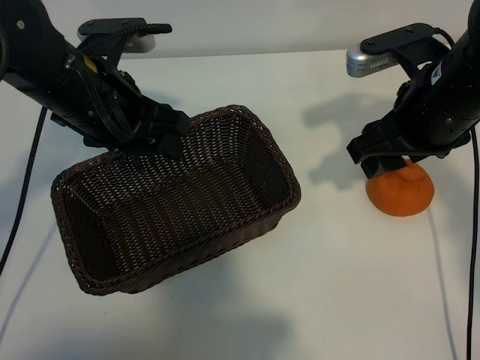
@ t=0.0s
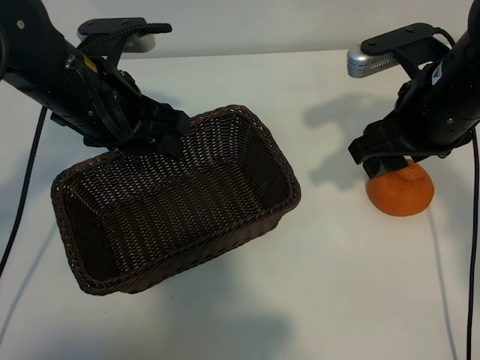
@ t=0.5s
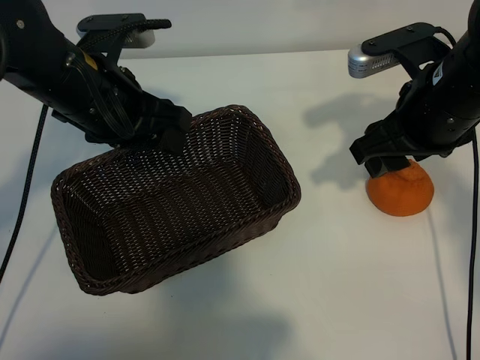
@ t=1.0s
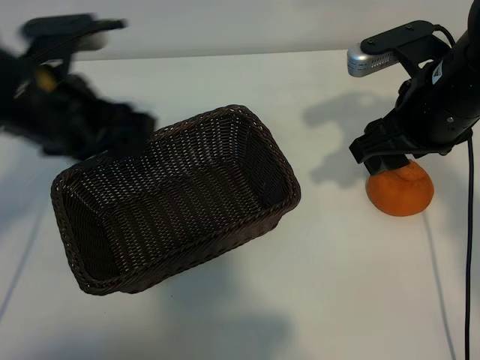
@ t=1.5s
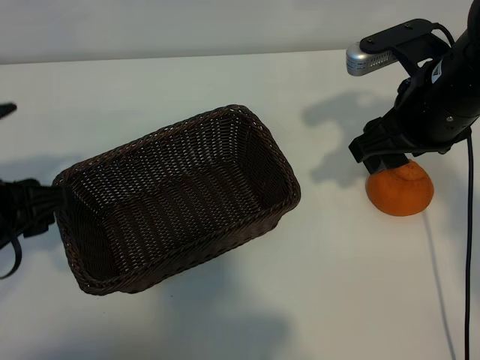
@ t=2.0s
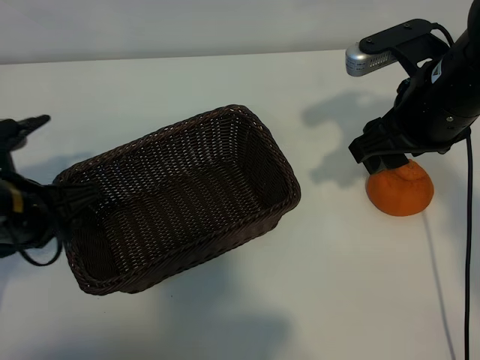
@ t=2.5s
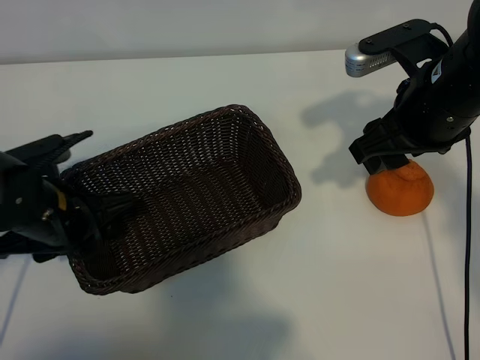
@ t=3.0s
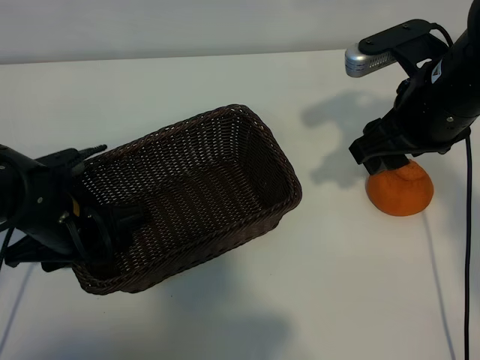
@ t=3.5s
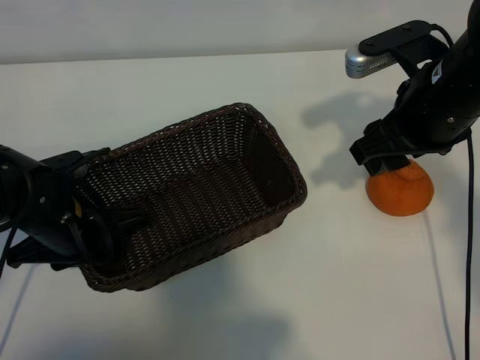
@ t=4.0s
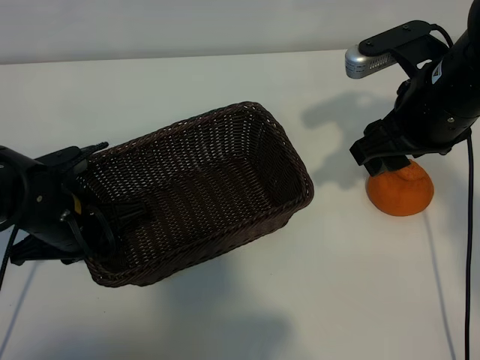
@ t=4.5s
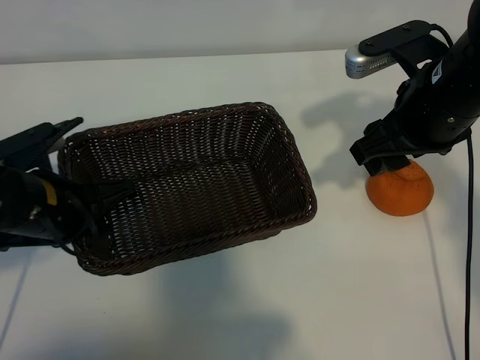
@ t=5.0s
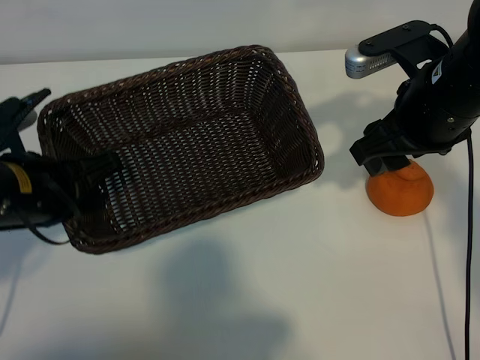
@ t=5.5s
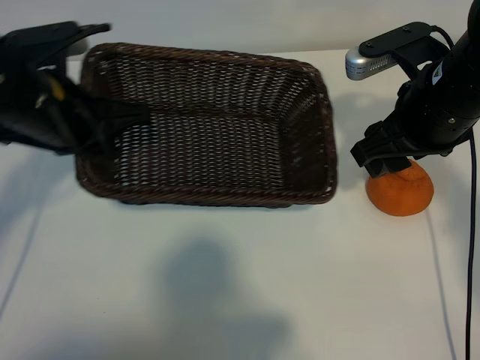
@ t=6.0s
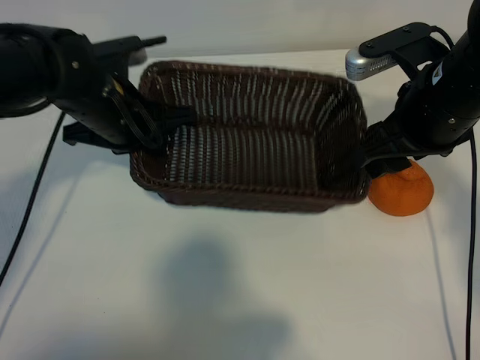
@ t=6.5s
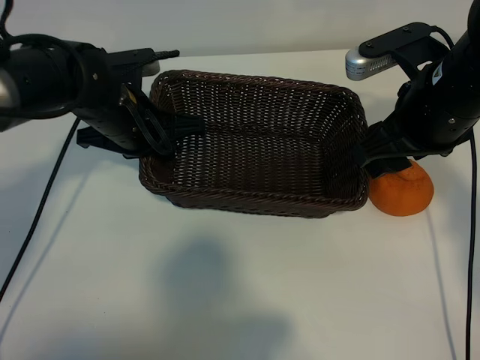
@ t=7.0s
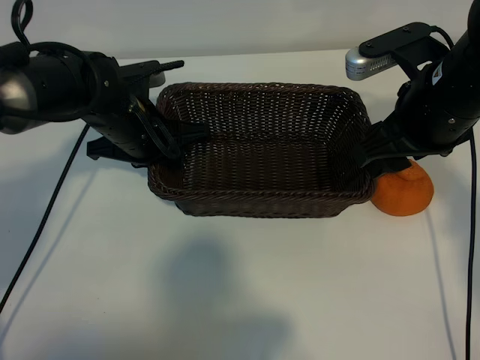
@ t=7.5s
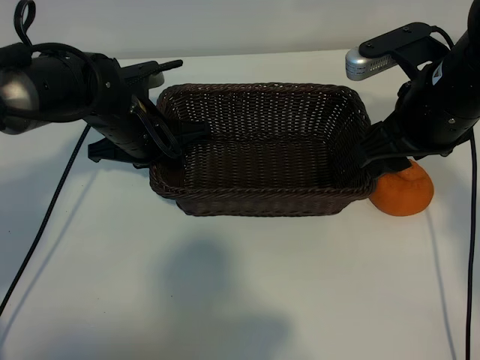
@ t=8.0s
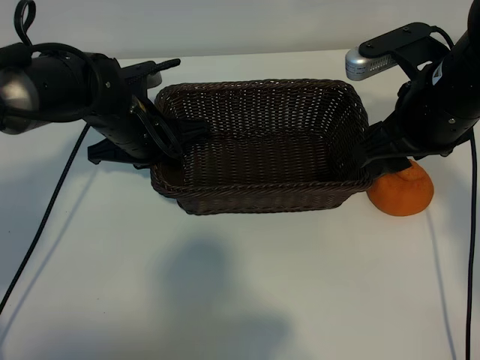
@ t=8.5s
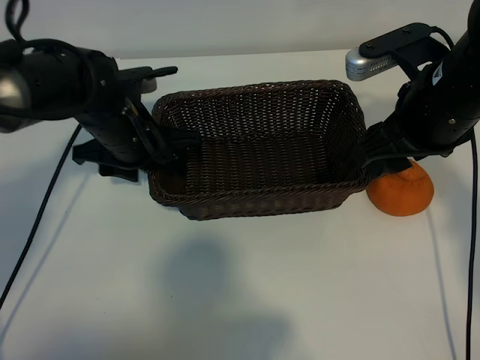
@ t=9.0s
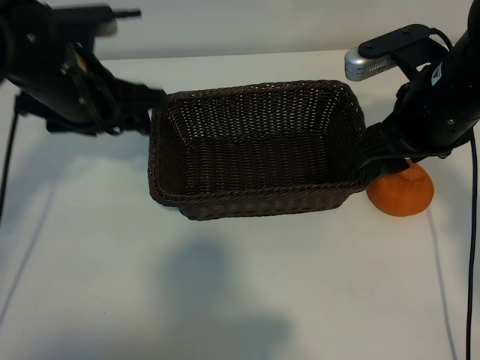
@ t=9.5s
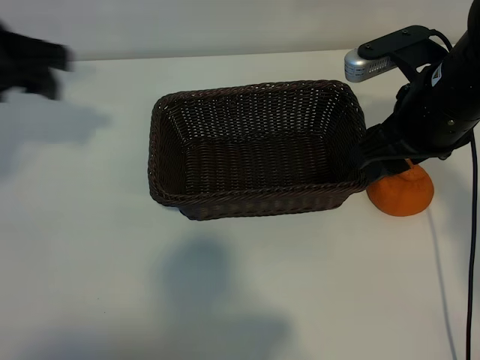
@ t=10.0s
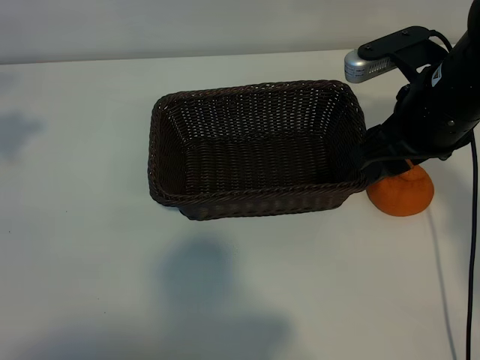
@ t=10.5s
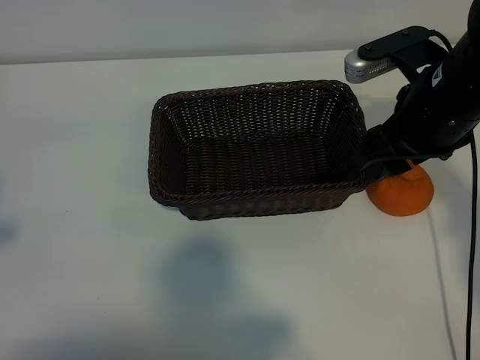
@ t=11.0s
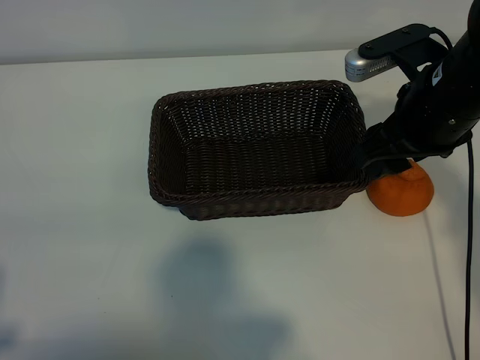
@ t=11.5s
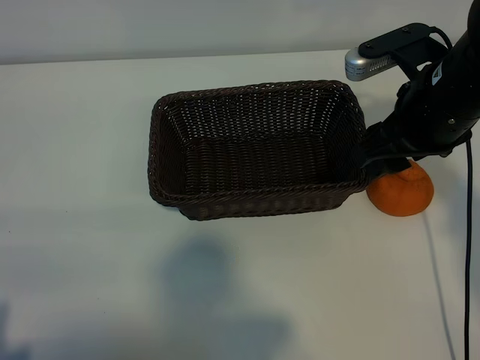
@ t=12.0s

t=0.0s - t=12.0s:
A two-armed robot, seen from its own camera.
Task of the whole recording: pick up the orange and put it into the basket.
Step, t=1.0s - t=4.0s: Grasp the basket with left gripper.
Step, t=4.5s - t=8.5s: Place the basket in the center of view with left gripper.

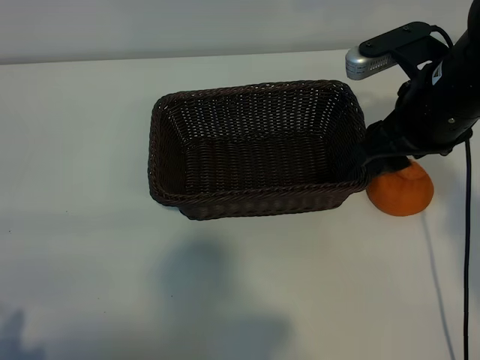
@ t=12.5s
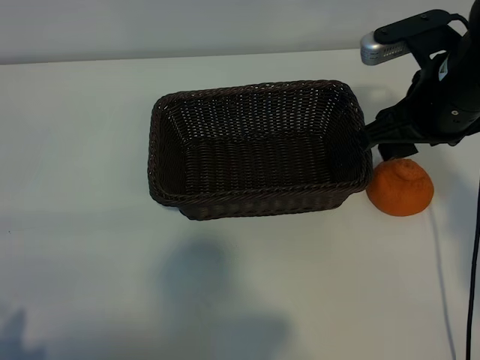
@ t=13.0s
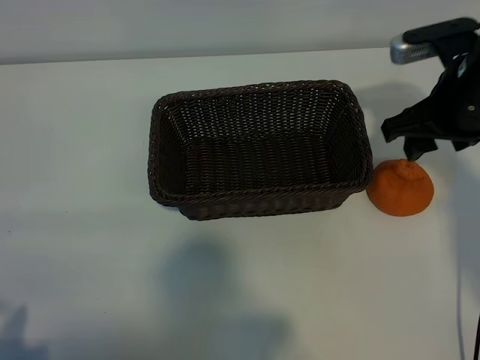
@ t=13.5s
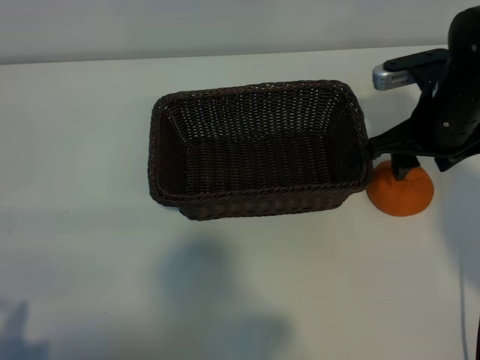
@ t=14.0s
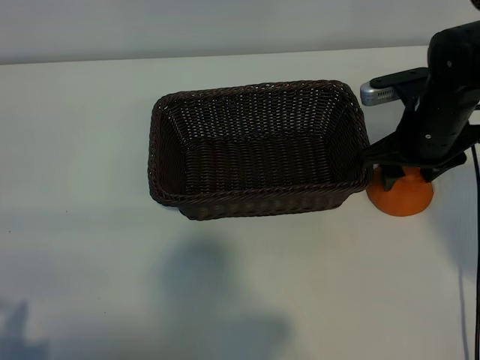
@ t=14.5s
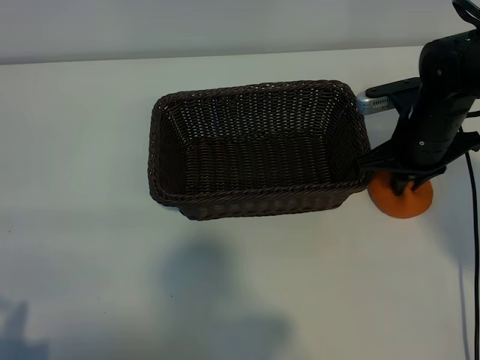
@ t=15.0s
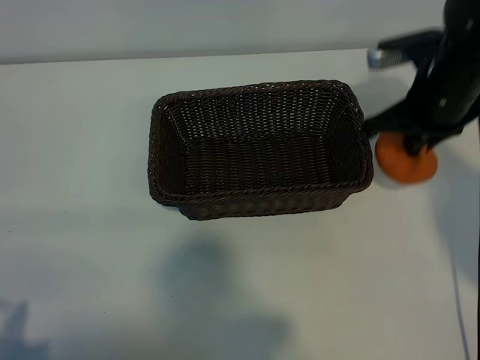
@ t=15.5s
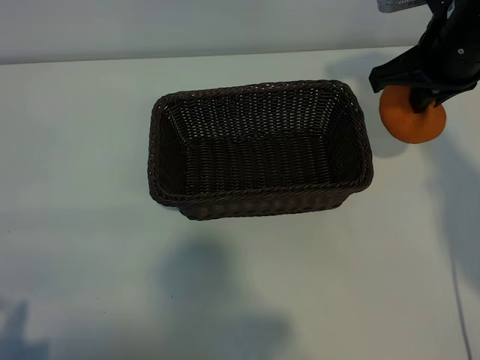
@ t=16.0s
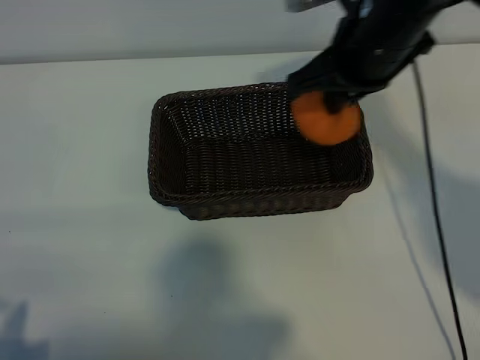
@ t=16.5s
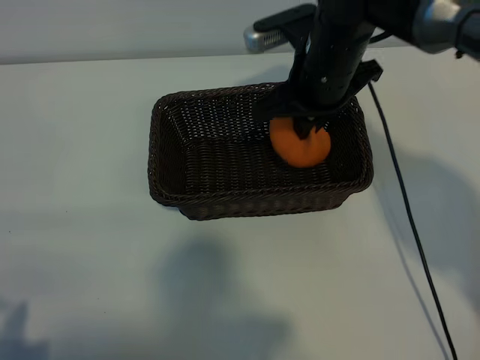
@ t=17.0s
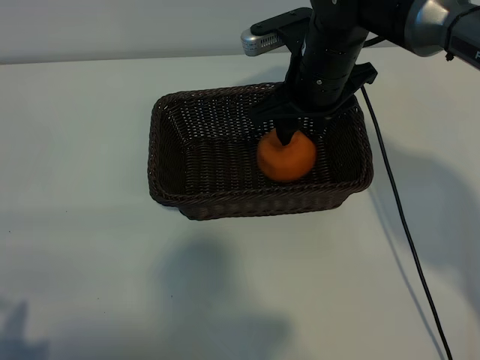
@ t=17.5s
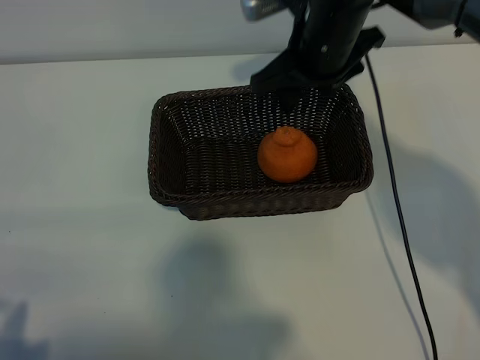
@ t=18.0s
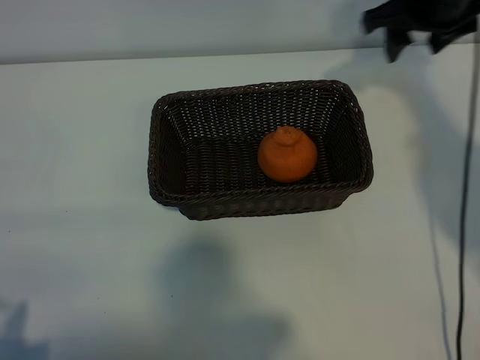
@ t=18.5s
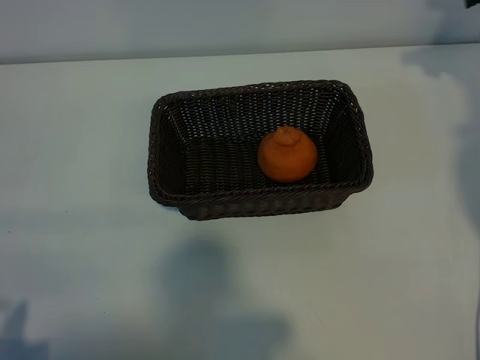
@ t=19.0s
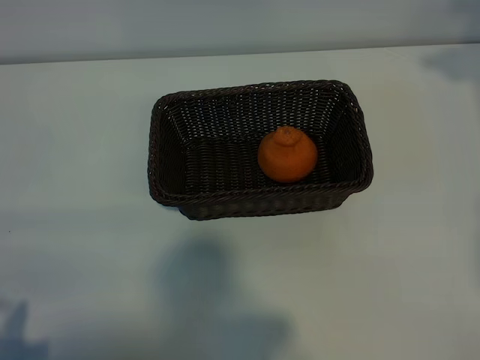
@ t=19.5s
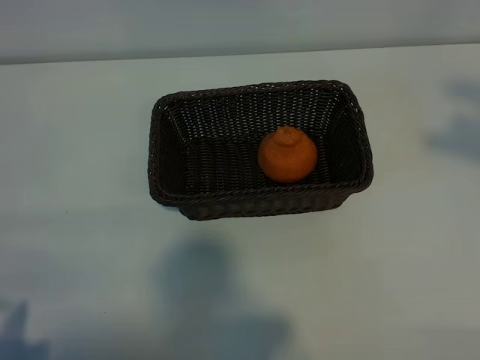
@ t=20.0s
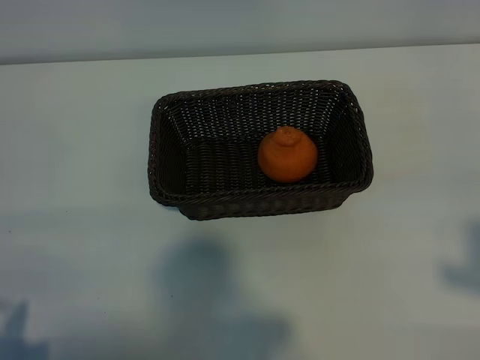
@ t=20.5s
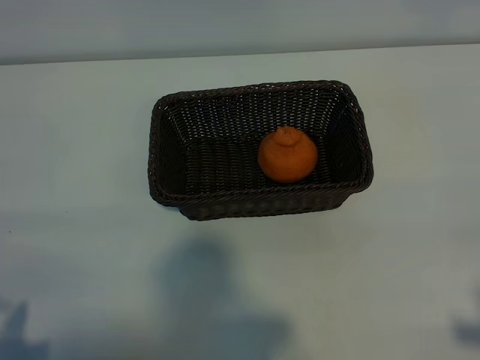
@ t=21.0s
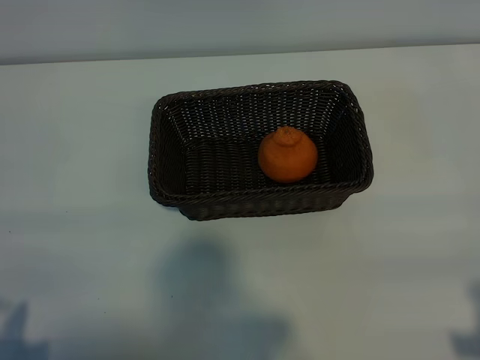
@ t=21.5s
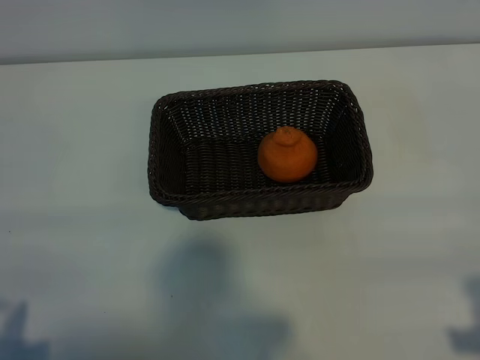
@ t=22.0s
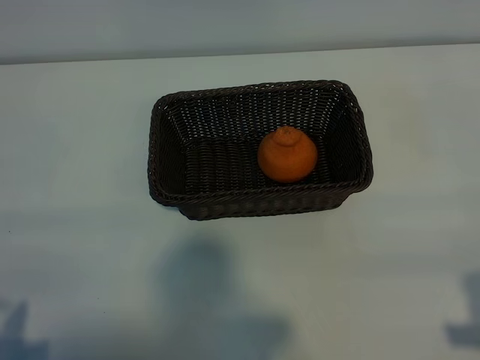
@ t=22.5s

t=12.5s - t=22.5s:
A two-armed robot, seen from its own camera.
Task of the whole recording: pick up the orange and put it into the basket.
Step, t=12.5s - t=15.0s: Grasp the orange with right gripper.
Step, t=15.5s - t=17.0s: Place the orange in the basket with right gripper.

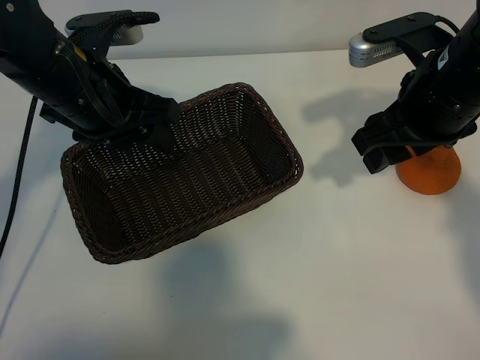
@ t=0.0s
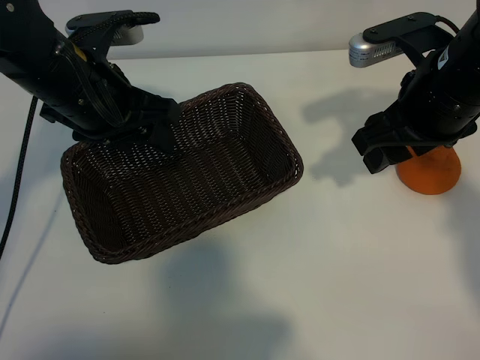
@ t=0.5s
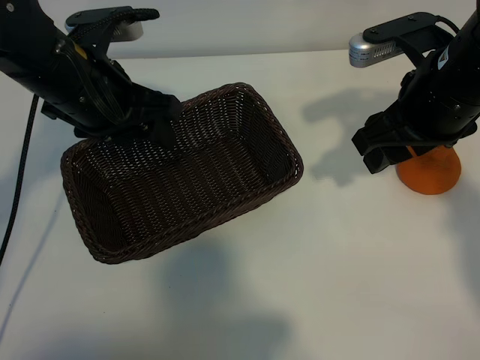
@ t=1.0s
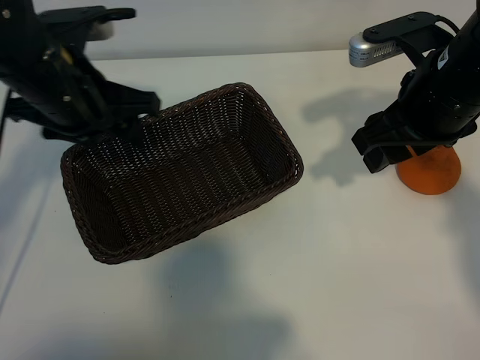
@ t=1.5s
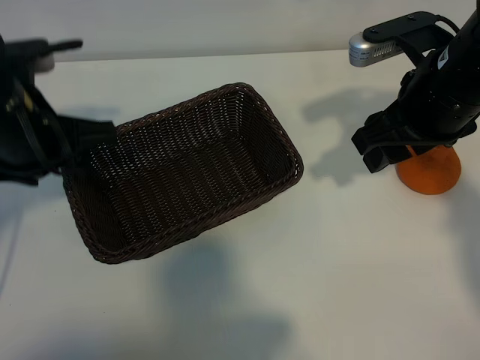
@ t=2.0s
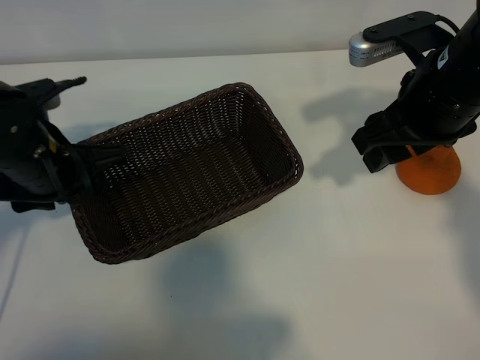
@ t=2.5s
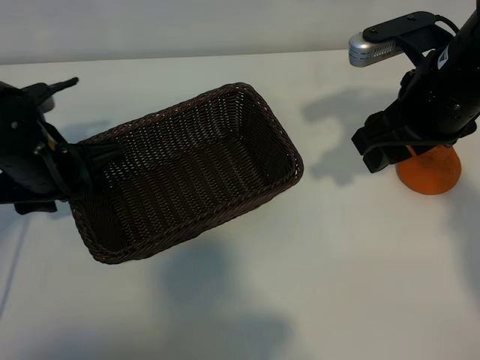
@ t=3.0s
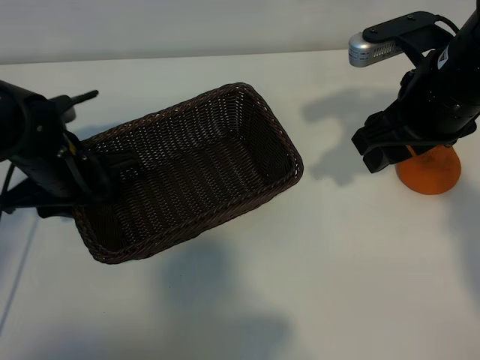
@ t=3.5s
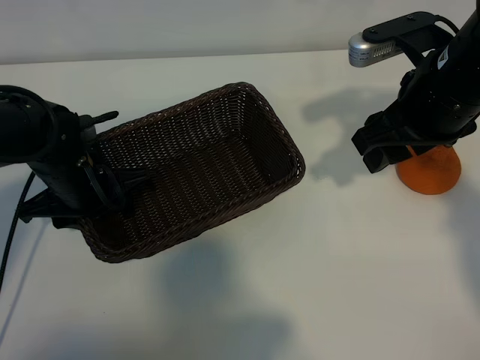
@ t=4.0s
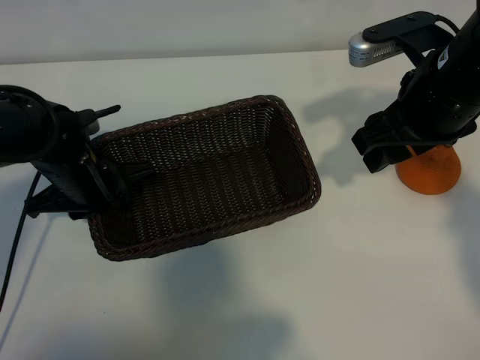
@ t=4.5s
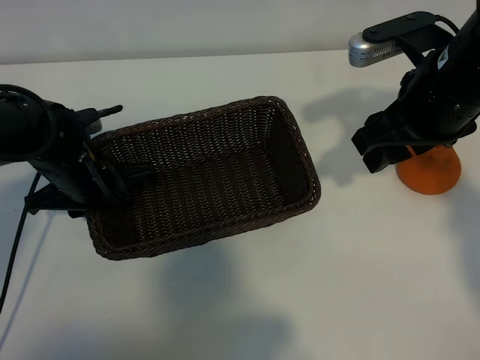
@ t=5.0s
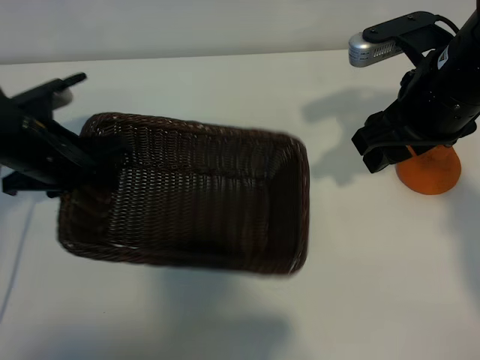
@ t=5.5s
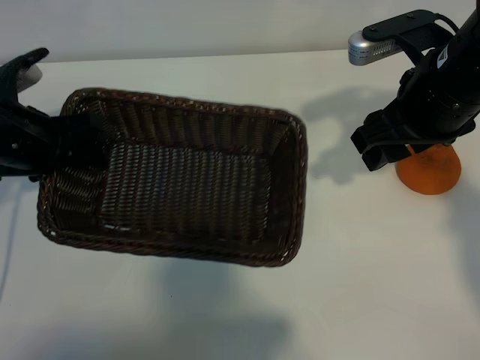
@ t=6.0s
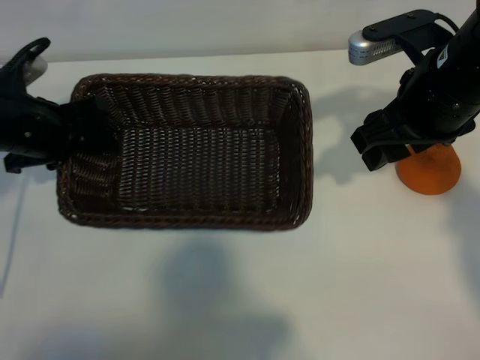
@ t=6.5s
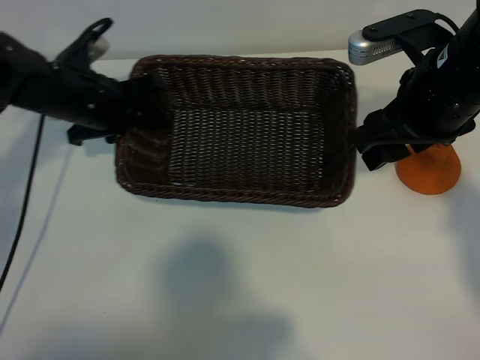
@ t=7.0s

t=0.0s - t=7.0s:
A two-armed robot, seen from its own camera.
Task of the whole recording: pick up the orange and put it into the basket.
Step, t=1.0s - t=4.5s: Grasp the basket with left gripper.
